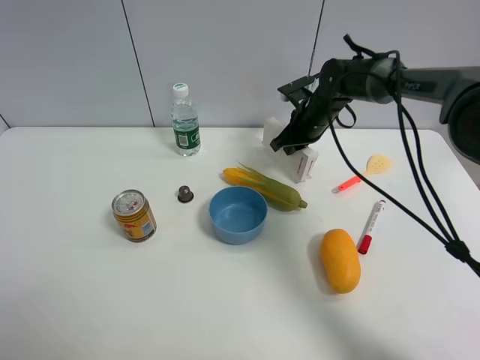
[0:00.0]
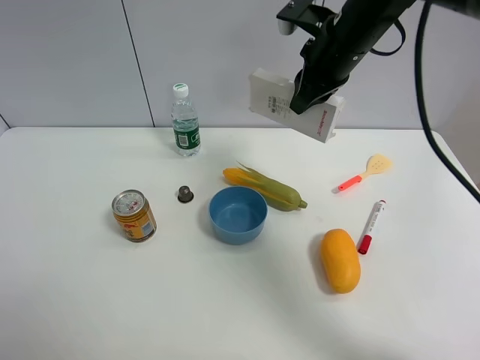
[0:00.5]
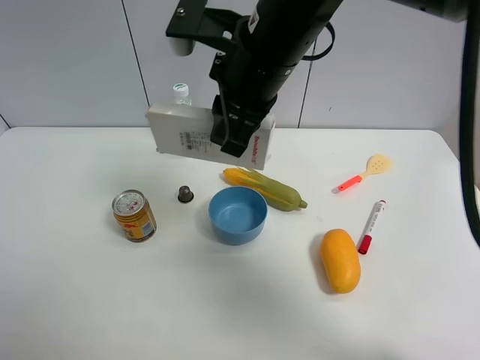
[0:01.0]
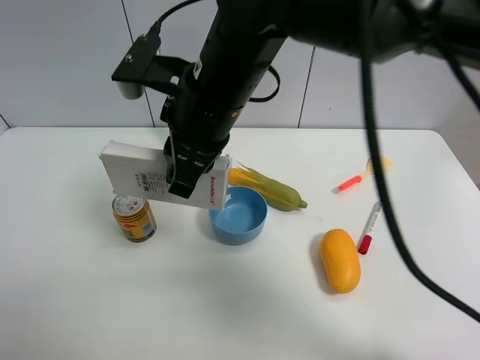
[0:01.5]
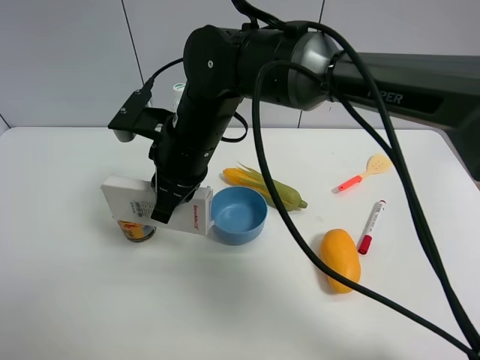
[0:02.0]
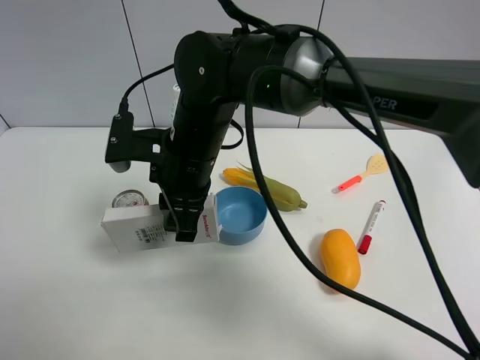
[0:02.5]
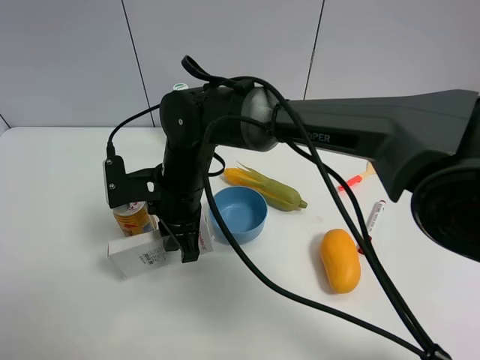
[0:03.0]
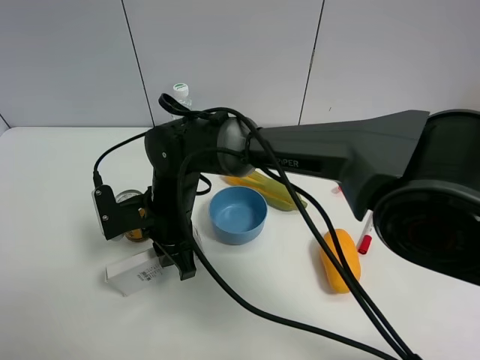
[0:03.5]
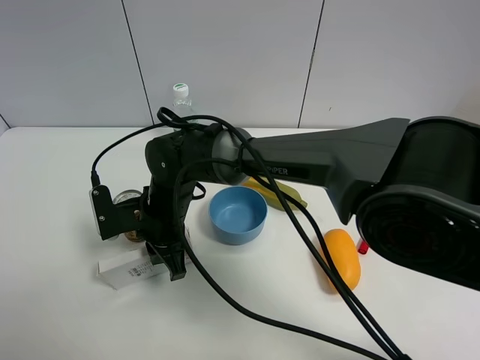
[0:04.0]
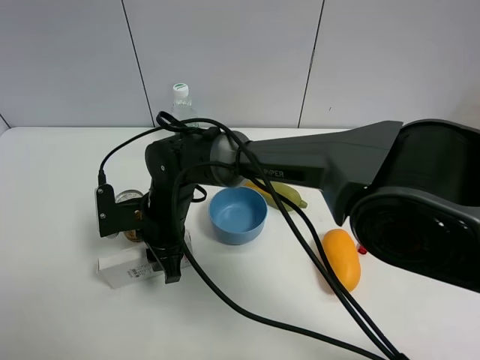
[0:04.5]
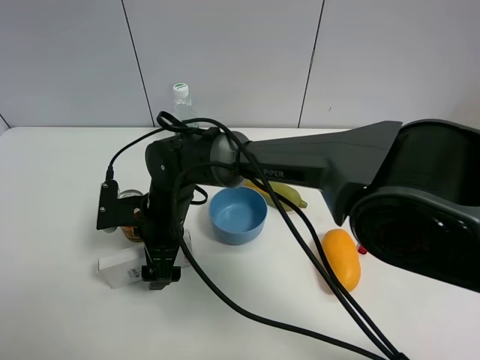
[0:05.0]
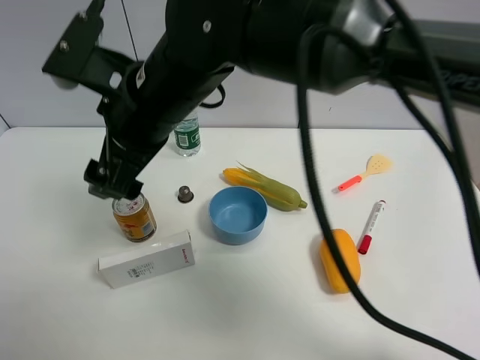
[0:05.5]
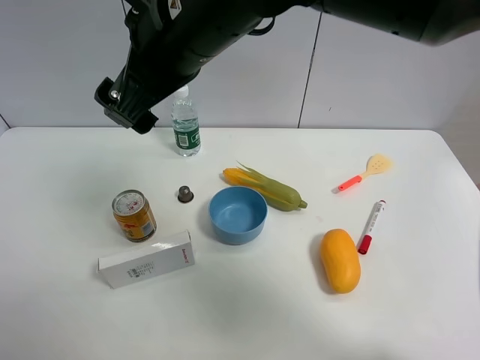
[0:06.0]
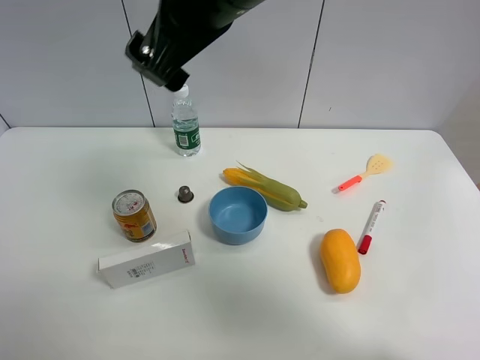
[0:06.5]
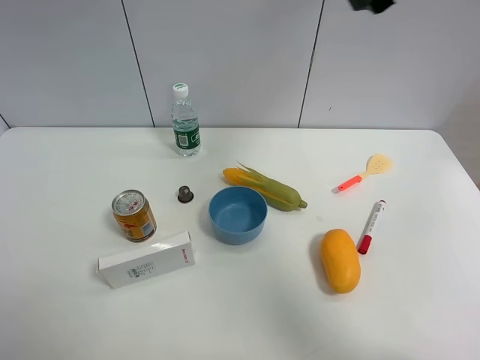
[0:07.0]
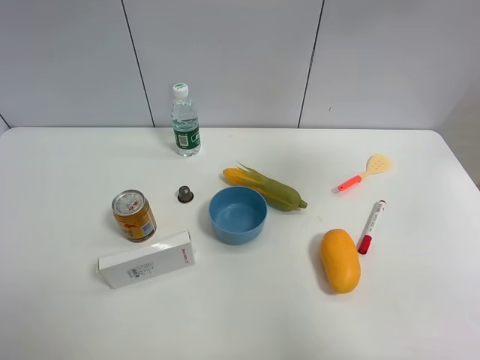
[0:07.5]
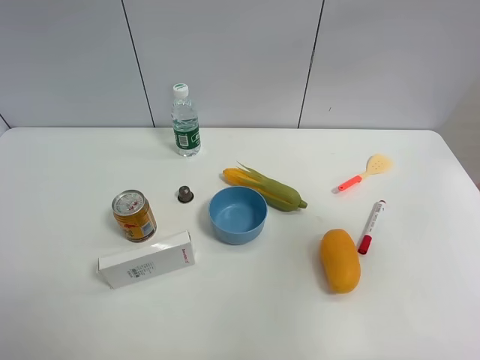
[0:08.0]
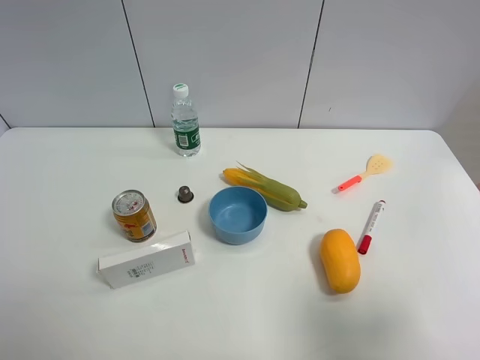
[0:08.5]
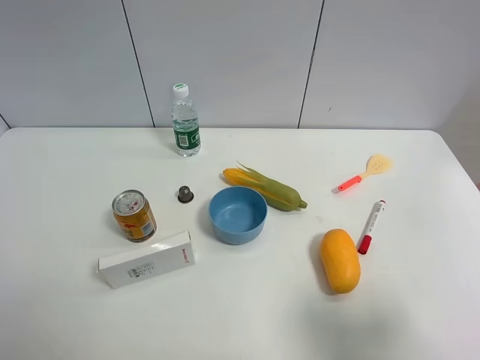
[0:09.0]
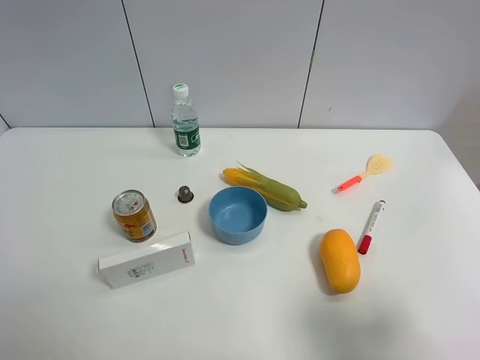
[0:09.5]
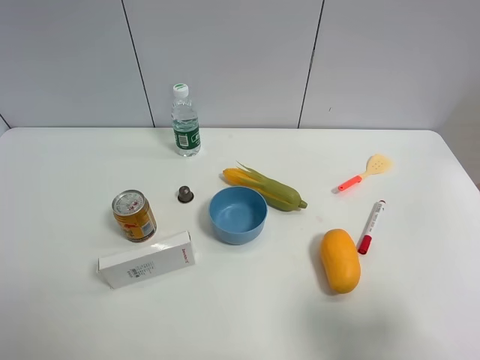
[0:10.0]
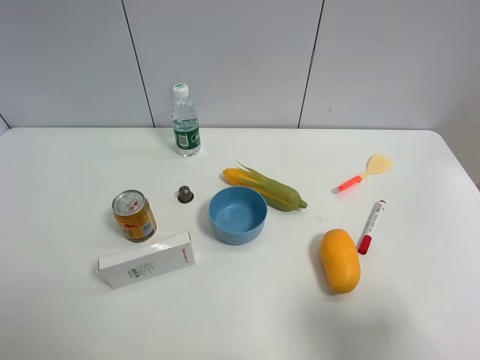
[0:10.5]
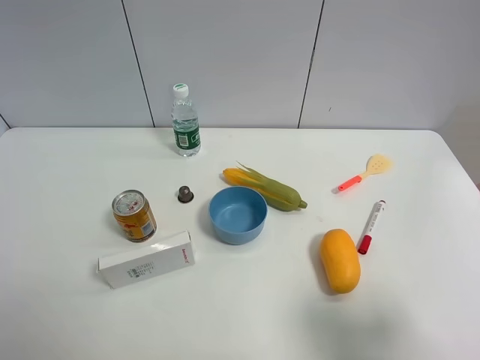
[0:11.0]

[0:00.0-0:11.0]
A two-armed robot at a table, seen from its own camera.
Task of the whole recording: the gripper move the object.
Step, 0:00.0 to 0:04.5: Place the USB box on the table with the right gripper.
0:00.0 to 0:02.0: The right gripper goes about 30 cm to the left and backward.
0:02.0 to 0:03.5: The right gripper moves downward, roughly 10 cm.
0:03.5 to 0:05.5: The right gripper heads upward, covering some 20 cm, and opens its fingers.
0:05.5 to 0:07.5: The right gripper is displaced to the right and upward by roughly 40 cm.
0:07.5 to 0:09.0: The right gripper heads downward and backward, covering approximately 30 cm.
0:09.0 to 0:11.0: Neither gripper changes place.

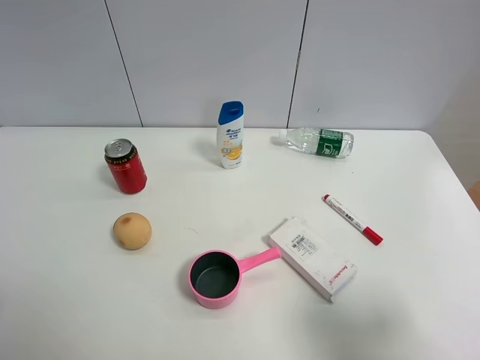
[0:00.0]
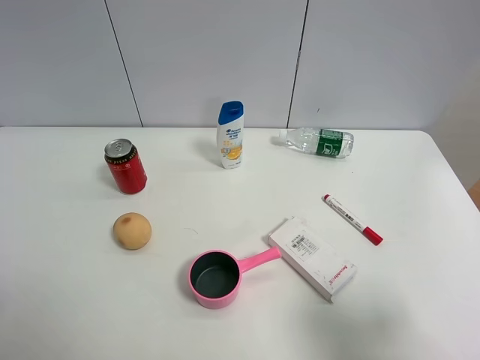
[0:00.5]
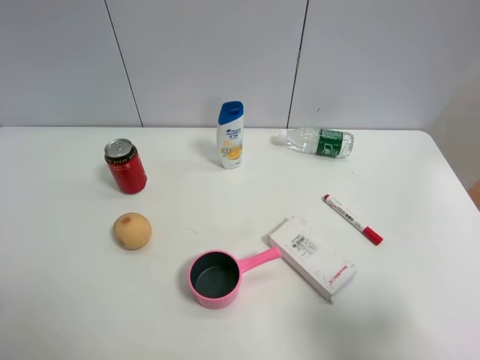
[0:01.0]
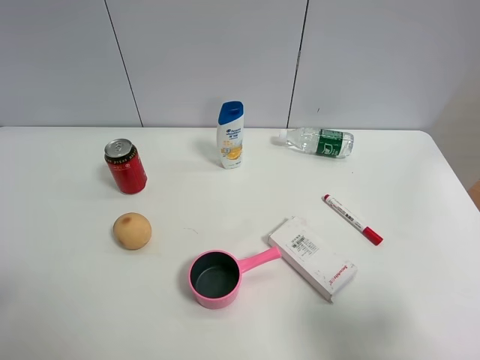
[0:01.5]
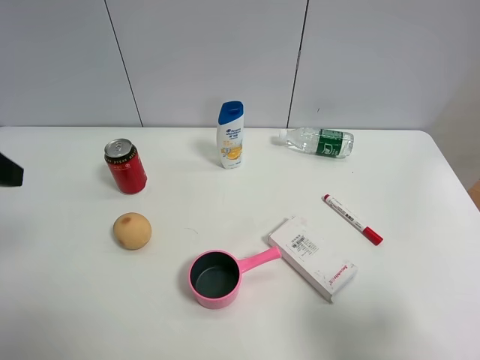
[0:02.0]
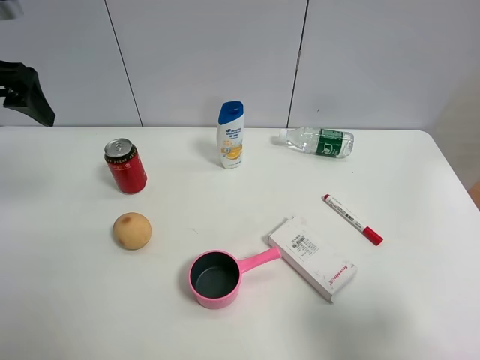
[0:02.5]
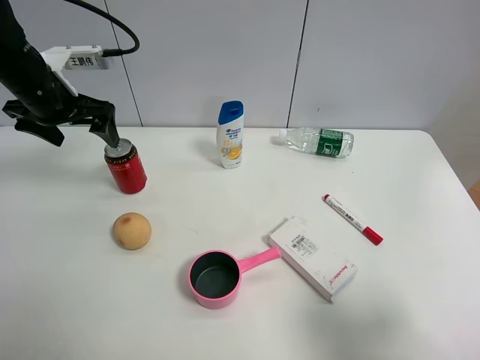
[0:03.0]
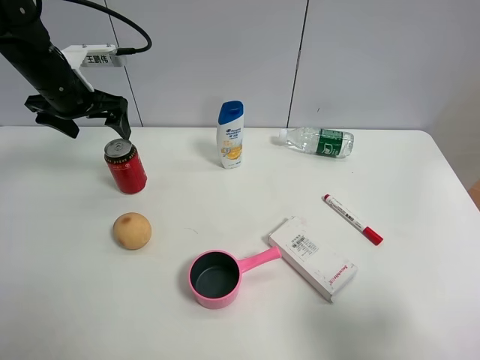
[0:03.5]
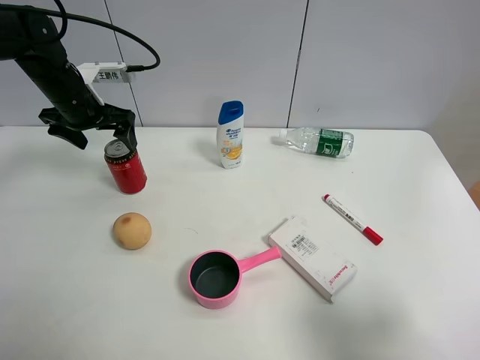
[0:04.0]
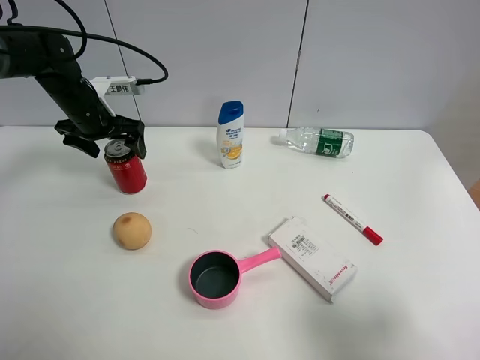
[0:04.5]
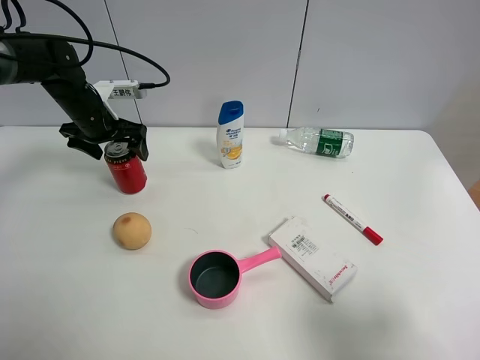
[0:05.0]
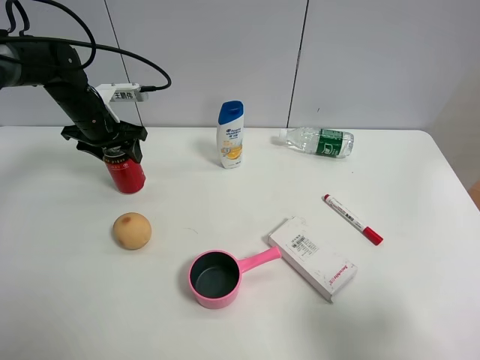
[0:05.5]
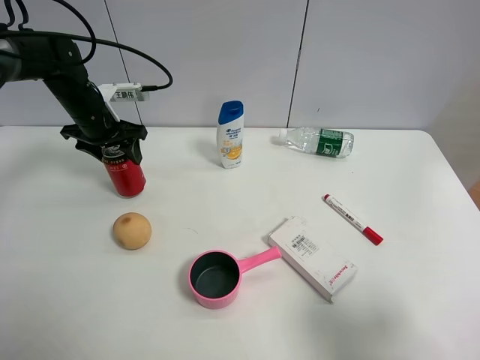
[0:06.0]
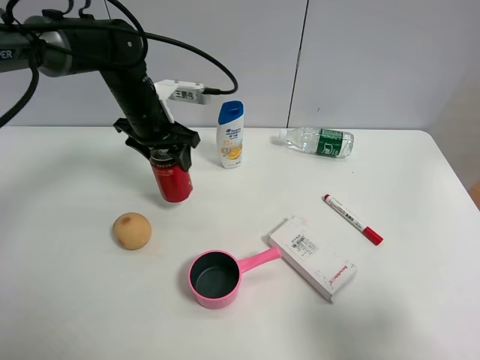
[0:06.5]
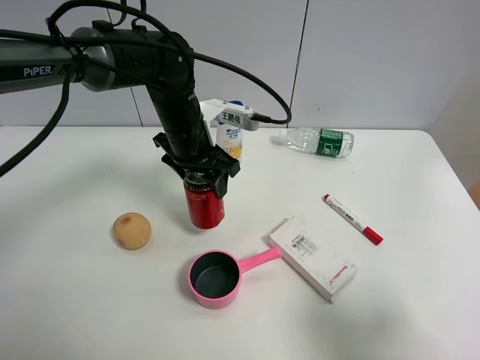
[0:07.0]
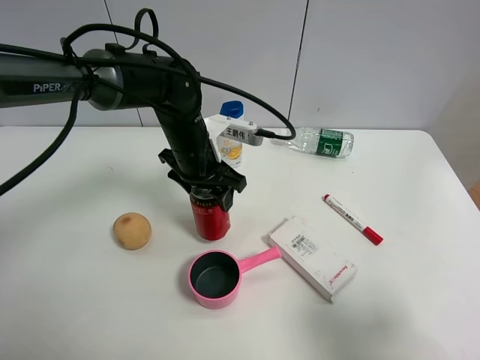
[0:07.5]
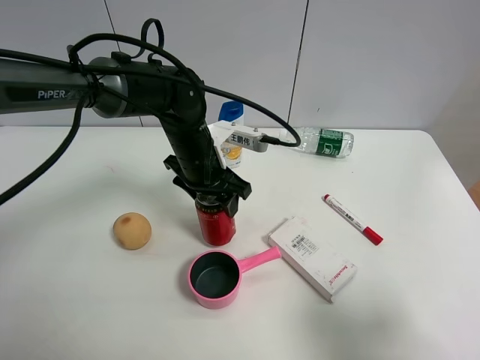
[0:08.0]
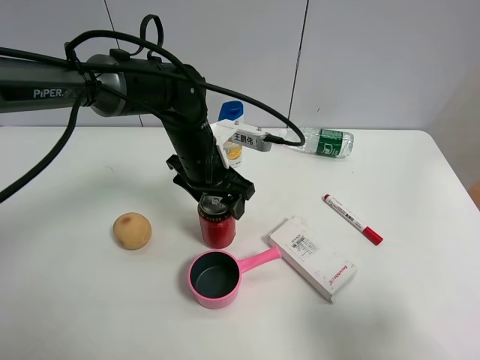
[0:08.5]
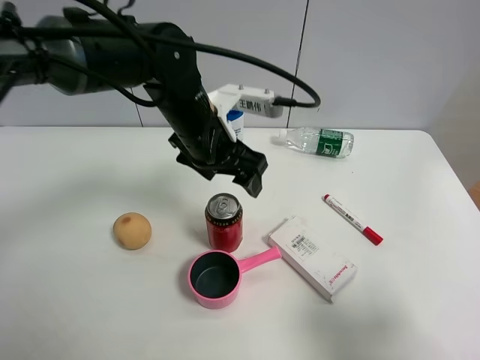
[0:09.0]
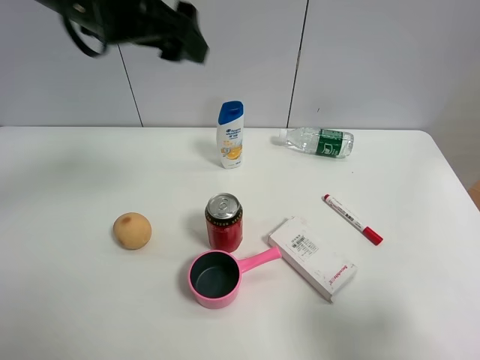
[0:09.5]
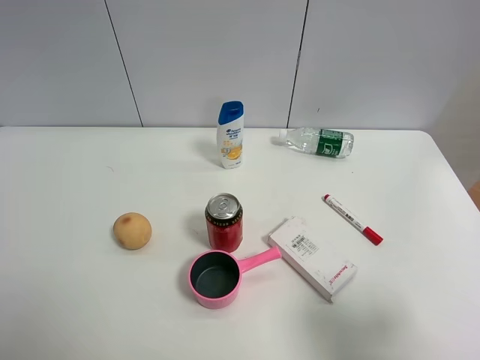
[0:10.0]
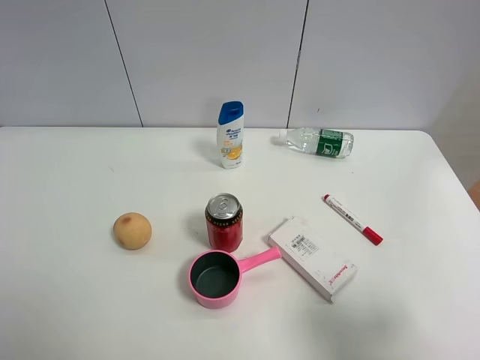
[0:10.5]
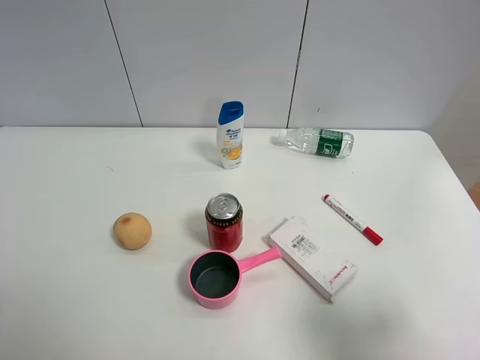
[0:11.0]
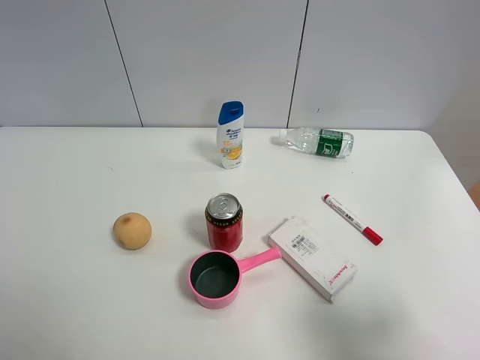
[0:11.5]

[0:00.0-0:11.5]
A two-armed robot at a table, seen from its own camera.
Task of the whole recording: the gripper move the object.
Step, 0:00.0 to 0:05.5: Grasp the Jia Duo Bao with the left gripper.
Step, 0:06.0 to 0:09.0: Place the Jia Duo Bao on the table with the left gripper.
0:02.0 to 0:04.0: The left gripper heads forward and downward, covering some 30 cm.
0:04.0 to 0:06.0: The left gripper closes up.
0:06.0 to 0:07.5: The left gripper heads to the right and backward, covering roughly 20 cm.
0:07.5 to 0:09.5: The left gripper goes roughly 25 cm upward, and opens up.
0:09.5 to 0:11.5: The left gripper heads backward, to the left and downward, covering about 35 cm.
